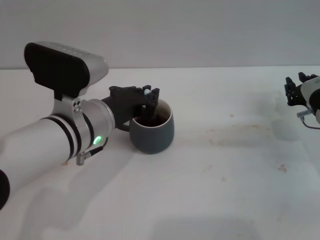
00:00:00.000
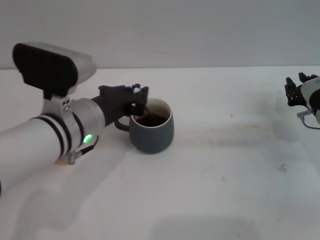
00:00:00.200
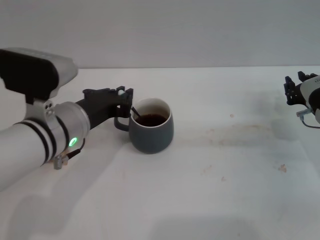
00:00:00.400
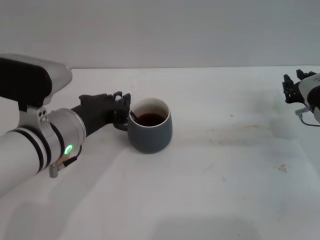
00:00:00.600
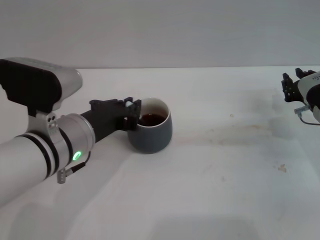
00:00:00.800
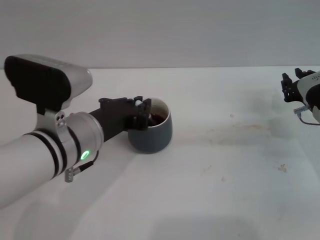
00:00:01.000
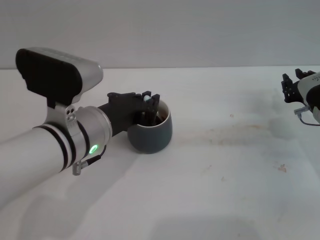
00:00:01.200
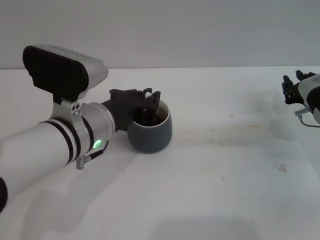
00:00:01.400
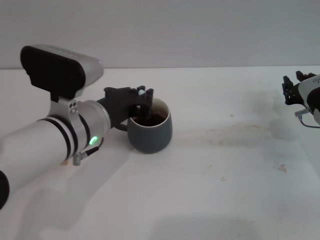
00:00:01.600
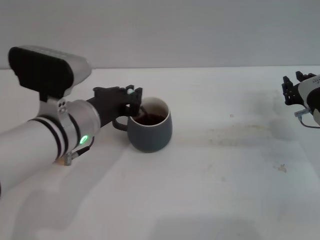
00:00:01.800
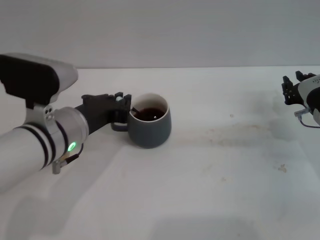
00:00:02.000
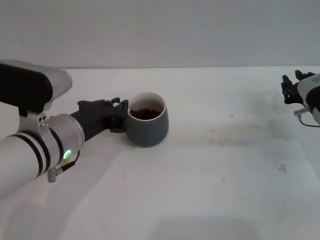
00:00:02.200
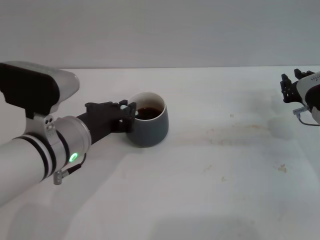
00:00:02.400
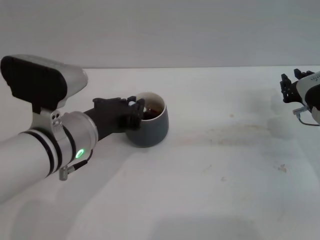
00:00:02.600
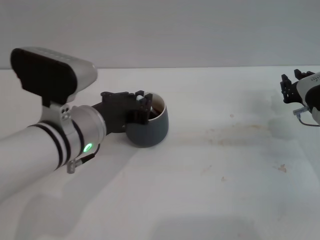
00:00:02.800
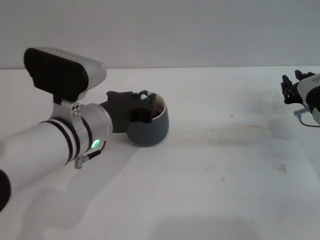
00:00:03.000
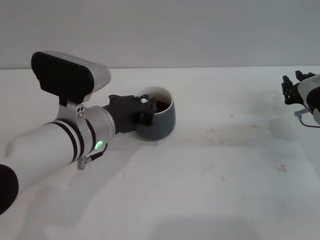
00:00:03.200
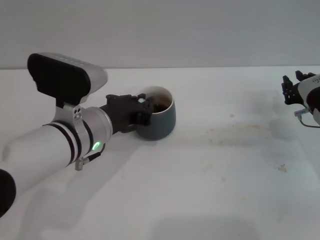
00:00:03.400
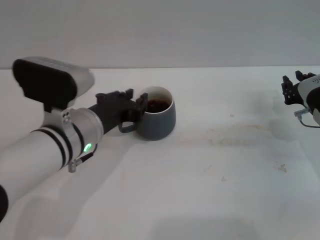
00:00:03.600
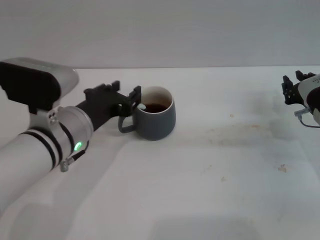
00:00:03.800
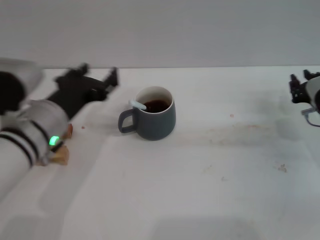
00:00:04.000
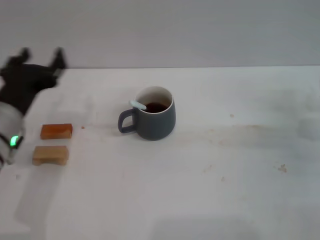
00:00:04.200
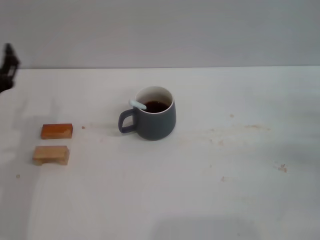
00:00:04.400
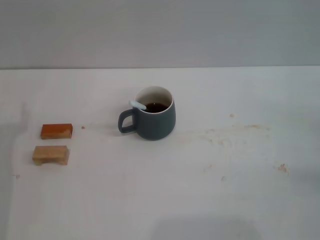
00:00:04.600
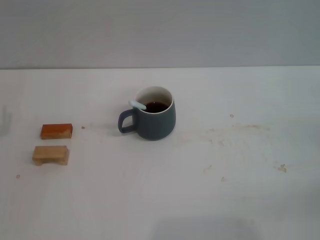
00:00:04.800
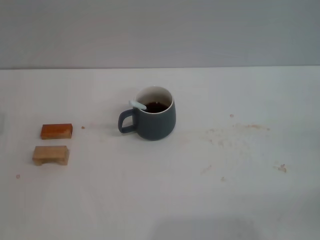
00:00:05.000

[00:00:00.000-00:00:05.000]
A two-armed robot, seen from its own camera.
Task of the whole recording: Move the grey cup to the center, lift the blue spoon, stir it three times in the cup, and put the spoon into the cup.
Step, 00:00:00.000 to 00:00:04.000: Stir the coffee in the cup with the left gripper.
00:00:00.000 to 00:00:03.400: There are only small adjustments of the grippers.
00:00:03.400 to 00:00:05.000: The right gripper shifts some 20 cm to the right and backward, while the left gripper moves to the left, about 20 cm, and opens up.
